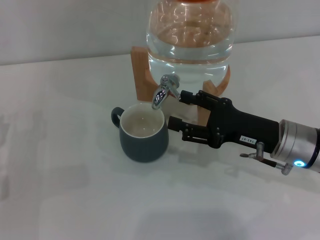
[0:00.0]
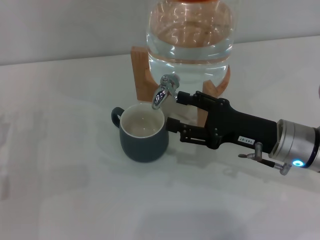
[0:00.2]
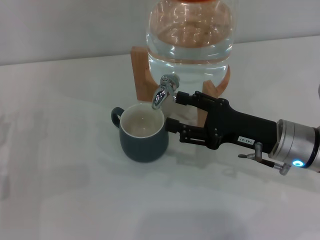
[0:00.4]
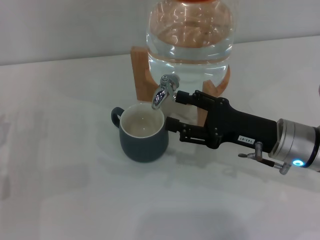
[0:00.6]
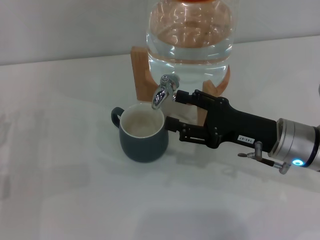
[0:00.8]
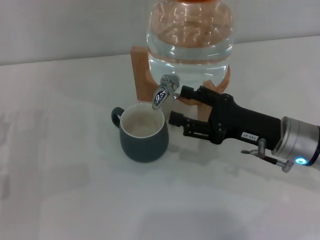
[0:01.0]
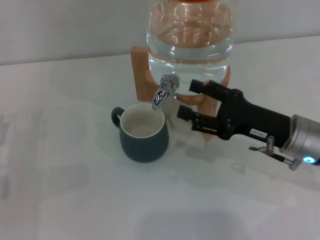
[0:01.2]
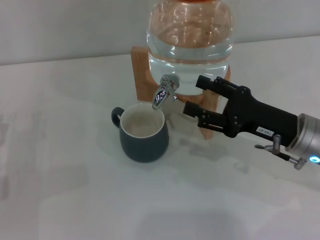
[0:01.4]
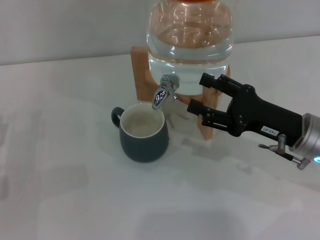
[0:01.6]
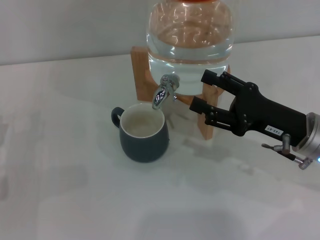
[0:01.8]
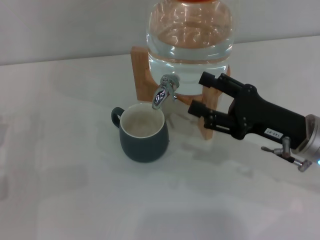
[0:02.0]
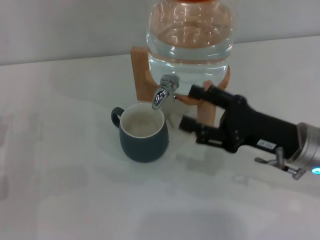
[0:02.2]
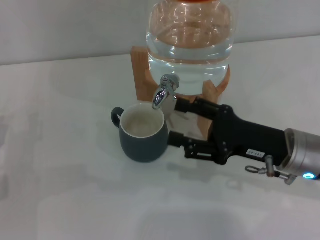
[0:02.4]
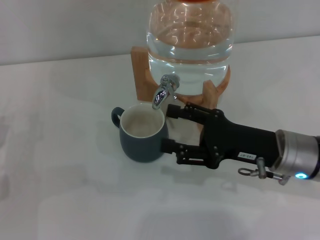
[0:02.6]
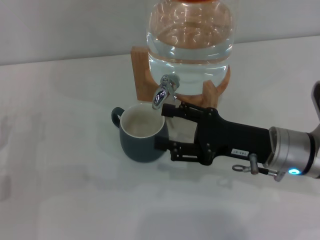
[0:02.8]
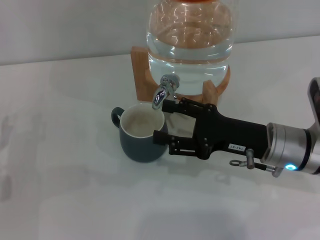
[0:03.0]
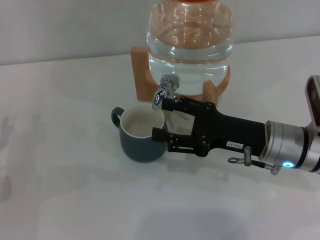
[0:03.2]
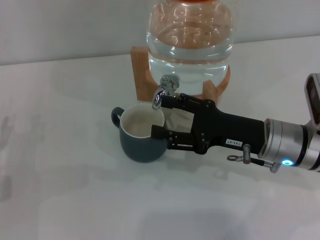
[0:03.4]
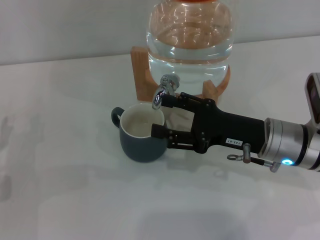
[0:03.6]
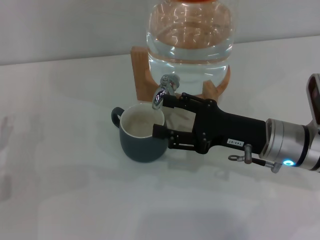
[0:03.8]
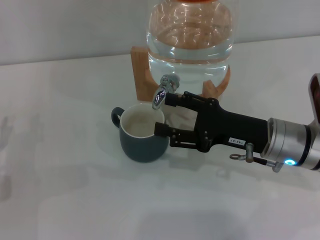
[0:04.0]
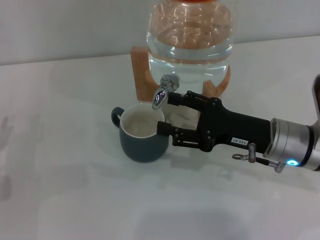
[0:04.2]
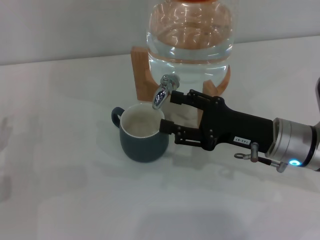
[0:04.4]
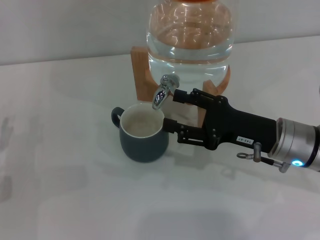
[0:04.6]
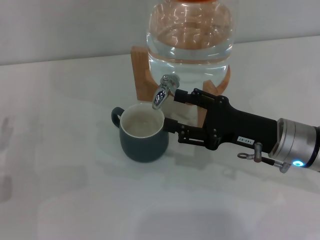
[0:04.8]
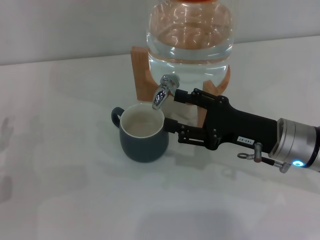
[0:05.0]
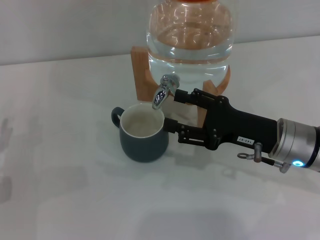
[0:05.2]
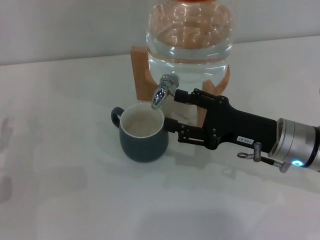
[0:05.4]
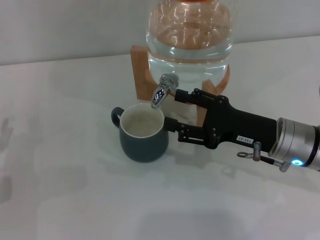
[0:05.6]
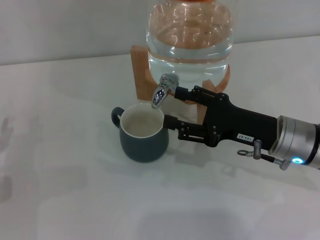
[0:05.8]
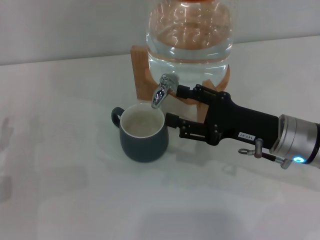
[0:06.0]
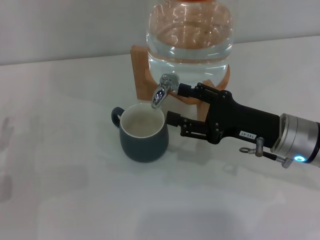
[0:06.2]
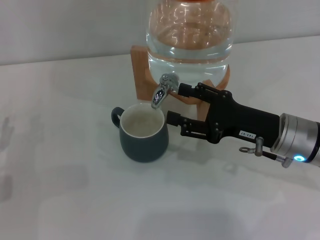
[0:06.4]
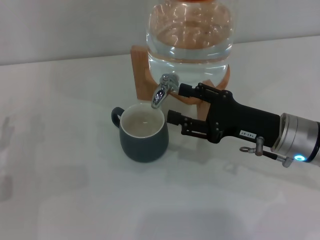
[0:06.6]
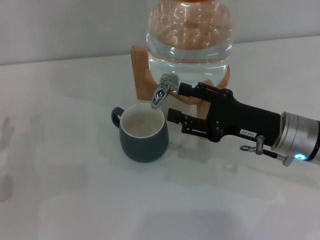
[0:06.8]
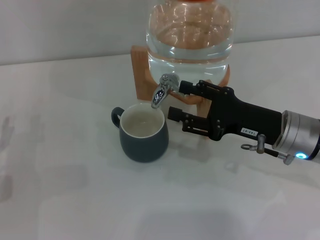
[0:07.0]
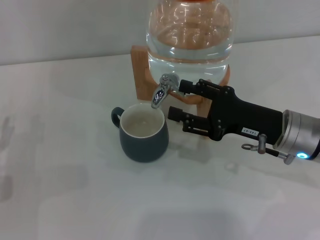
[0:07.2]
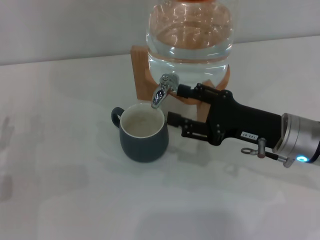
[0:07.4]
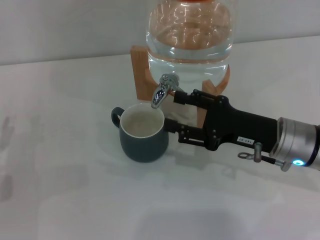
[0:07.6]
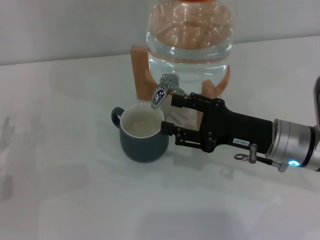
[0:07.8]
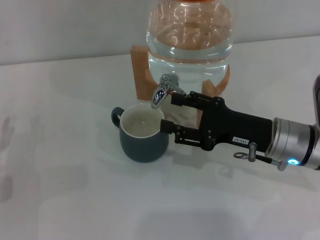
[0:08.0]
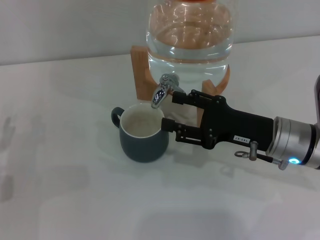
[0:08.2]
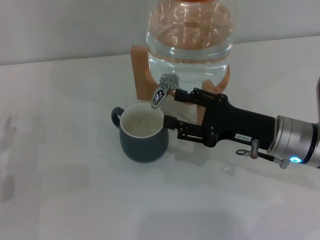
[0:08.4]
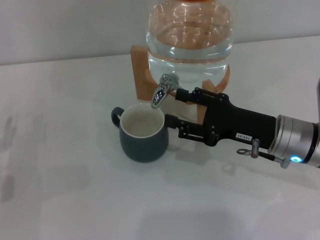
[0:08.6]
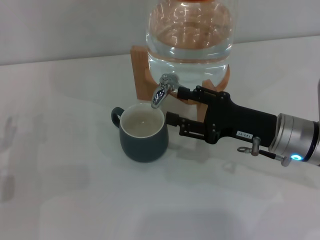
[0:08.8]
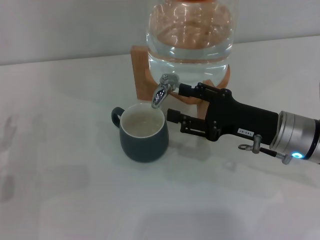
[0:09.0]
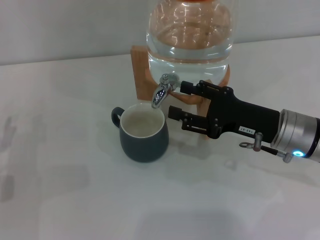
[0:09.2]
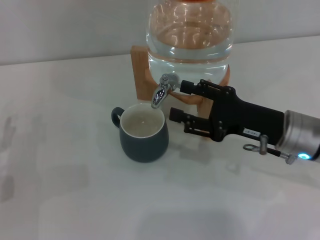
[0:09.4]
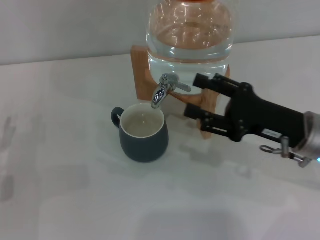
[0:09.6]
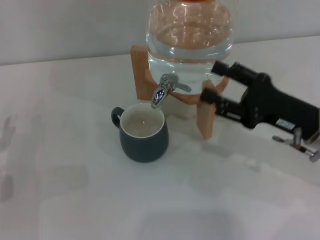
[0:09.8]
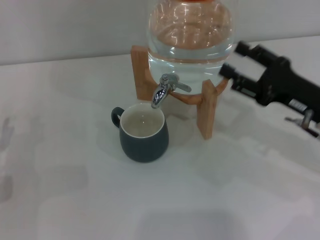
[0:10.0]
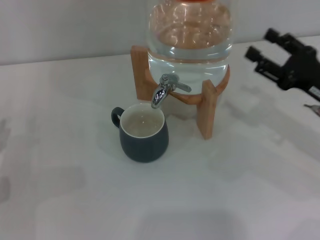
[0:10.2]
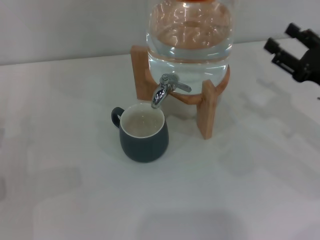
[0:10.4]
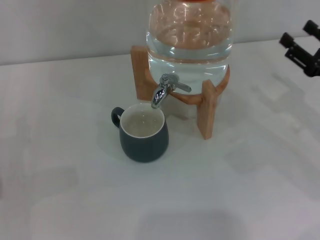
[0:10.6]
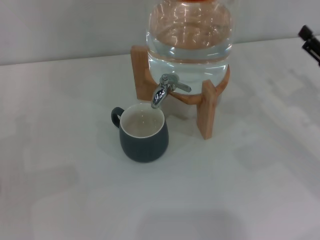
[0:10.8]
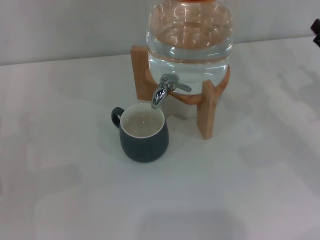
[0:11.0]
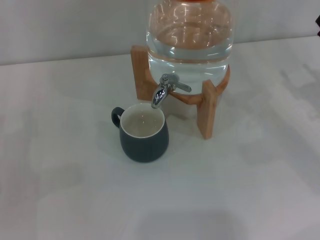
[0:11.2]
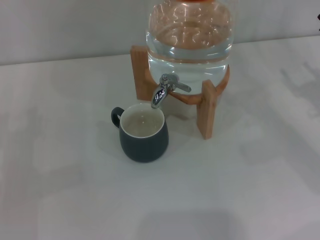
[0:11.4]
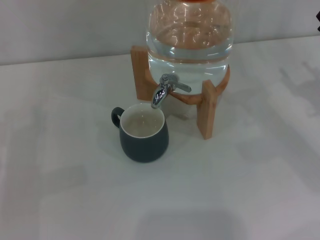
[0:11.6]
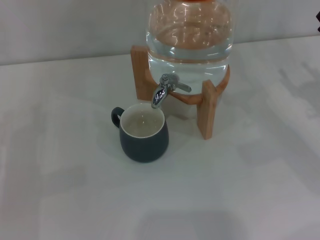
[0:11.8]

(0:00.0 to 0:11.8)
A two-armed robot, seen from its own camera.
Task of the whole recording: the left gripper pick up the black cup and place it horizontally under the faucet, the right gripper turn on the faucet to fill the cup, and then turn off the faucet.
Step, 0:01.0 - 0:07.4: Close the dispenser valve with the right gripper.
0:00.0 - 0:03.0: The grippers stay close to where they were, moving slightly.
0:03.0 - 0:04.4: Both grippers stay about where they are.
0:04.4 - 0:07.4: The two grippers keep their place.
0:07.4 - 0:08.8: Both grippers stay about where they are.
0:08.8 - 0:10.4: The right gripper goes approximately 10 cm to the right.
